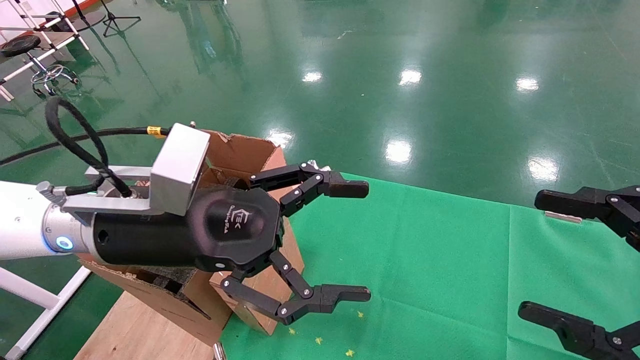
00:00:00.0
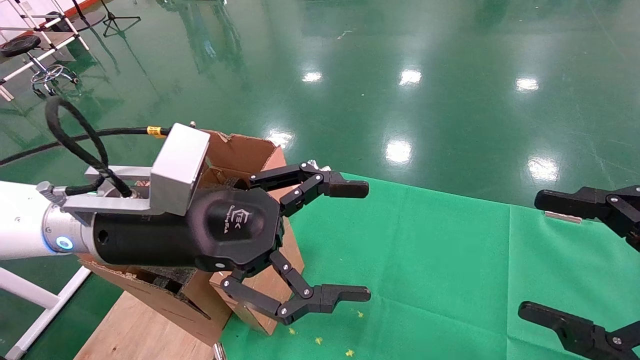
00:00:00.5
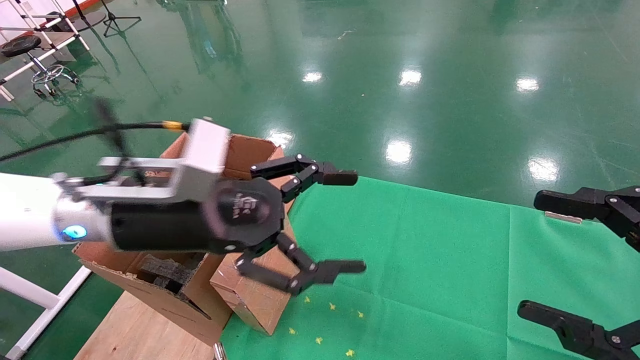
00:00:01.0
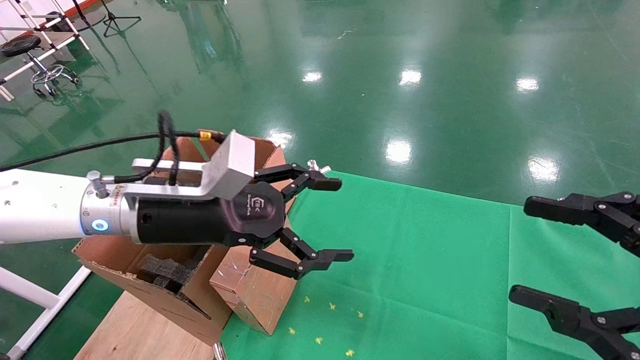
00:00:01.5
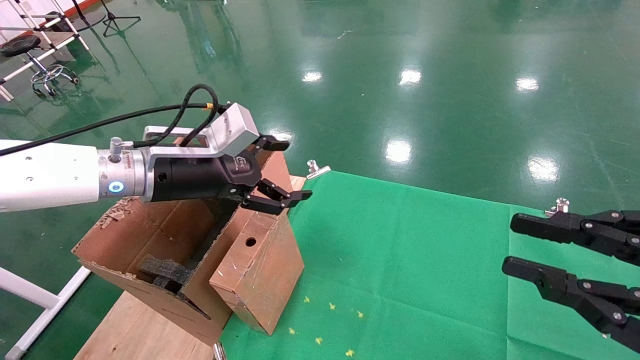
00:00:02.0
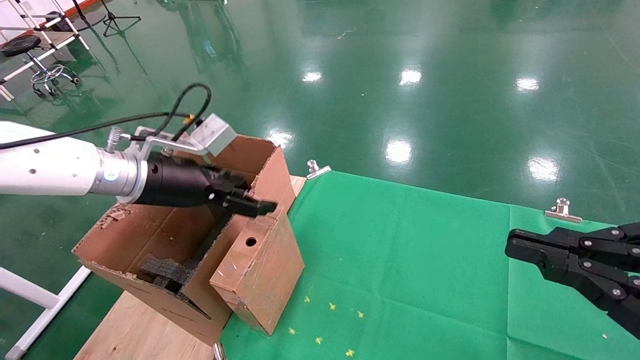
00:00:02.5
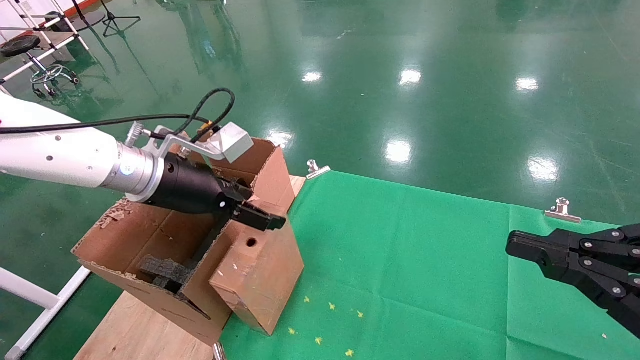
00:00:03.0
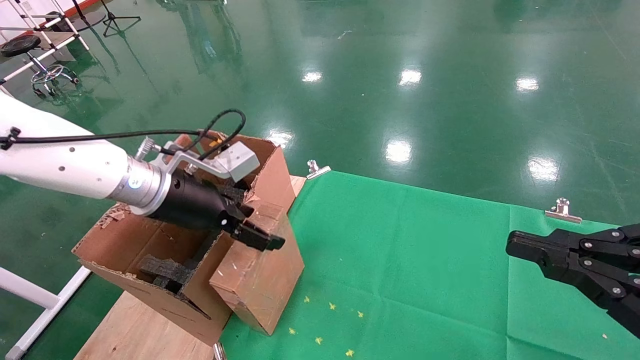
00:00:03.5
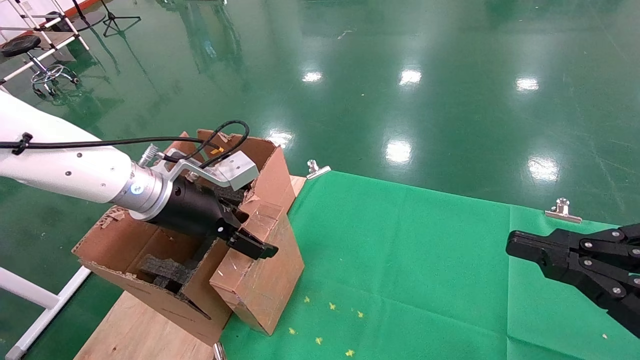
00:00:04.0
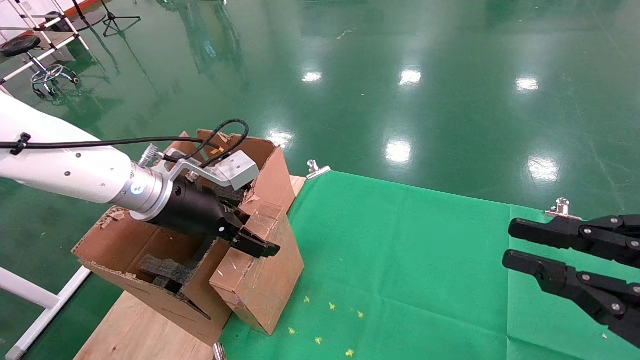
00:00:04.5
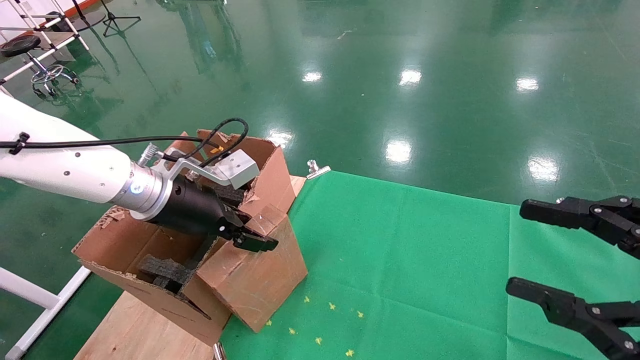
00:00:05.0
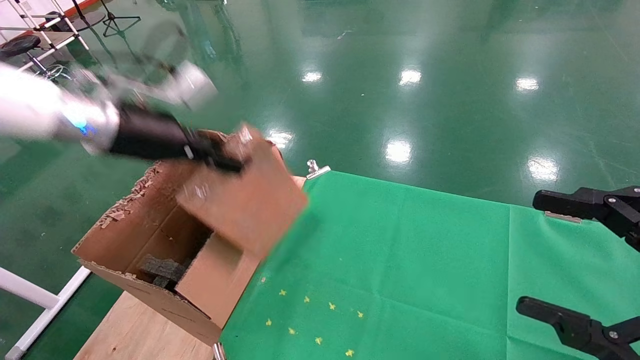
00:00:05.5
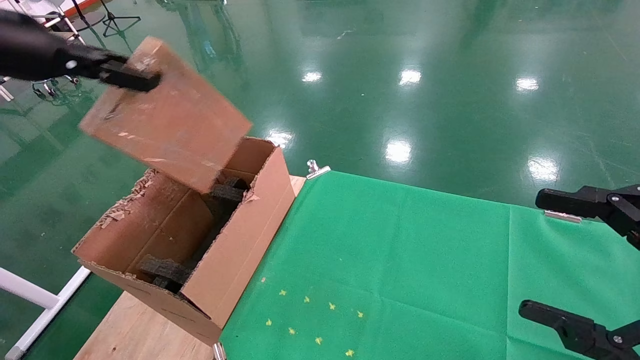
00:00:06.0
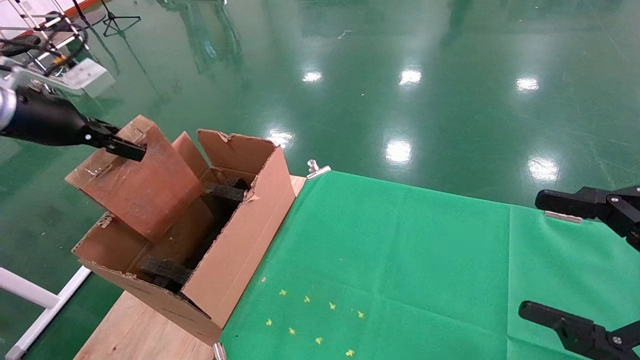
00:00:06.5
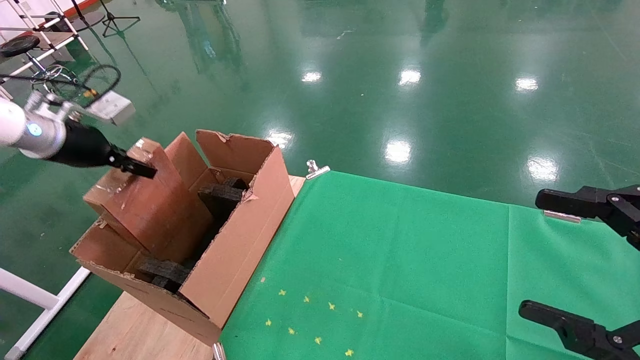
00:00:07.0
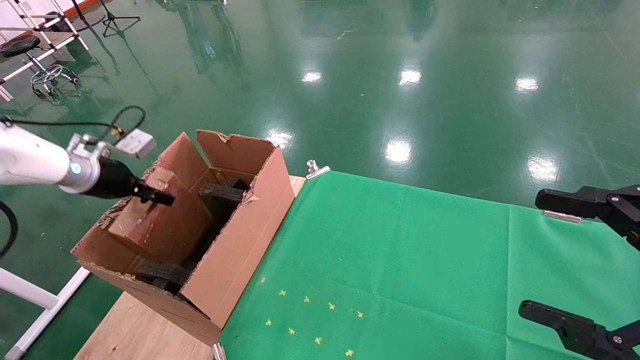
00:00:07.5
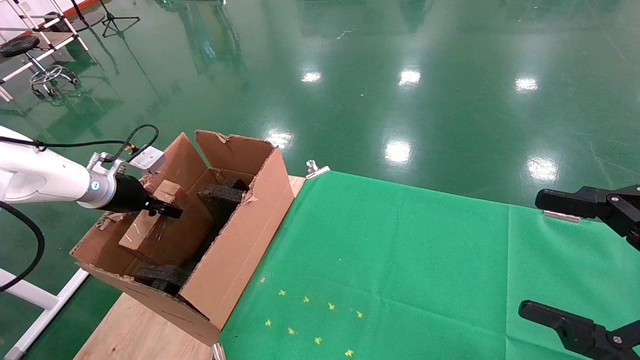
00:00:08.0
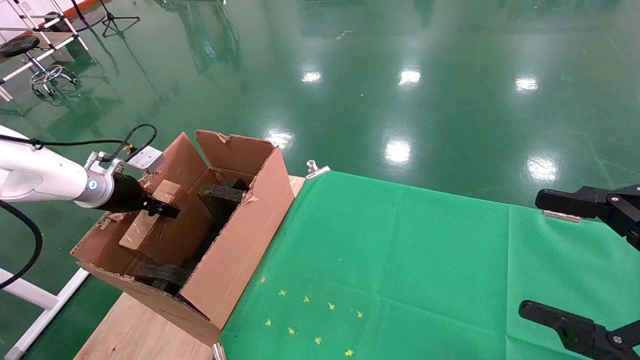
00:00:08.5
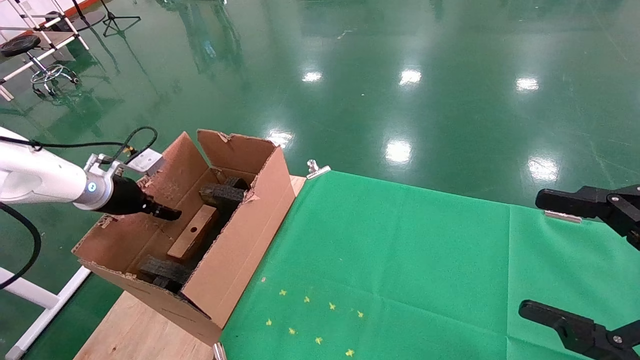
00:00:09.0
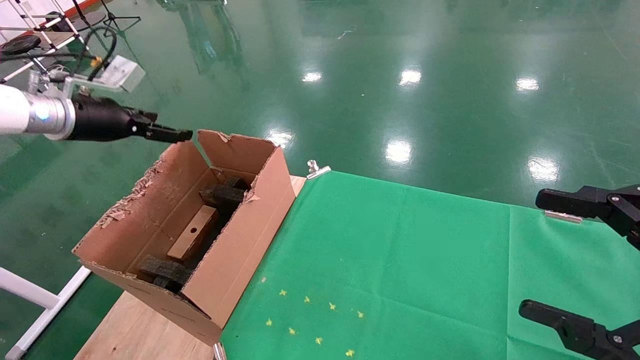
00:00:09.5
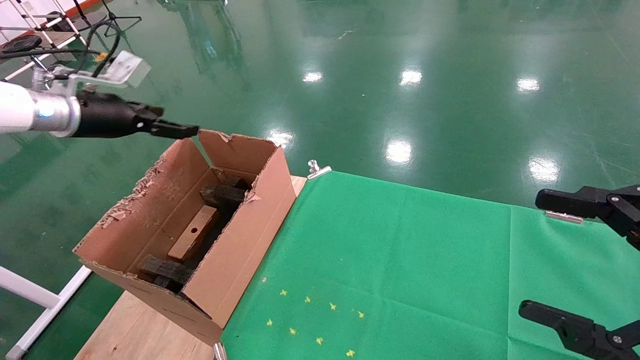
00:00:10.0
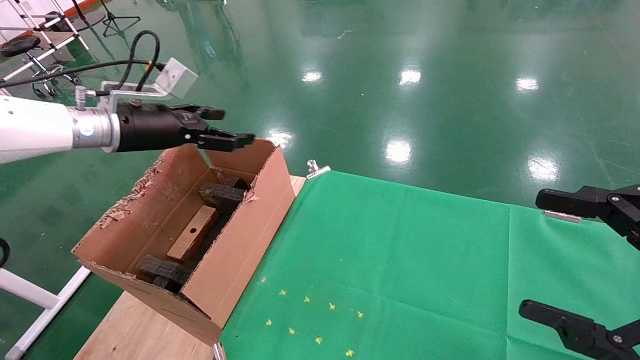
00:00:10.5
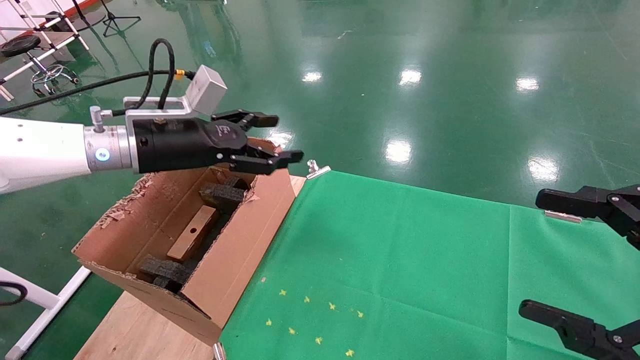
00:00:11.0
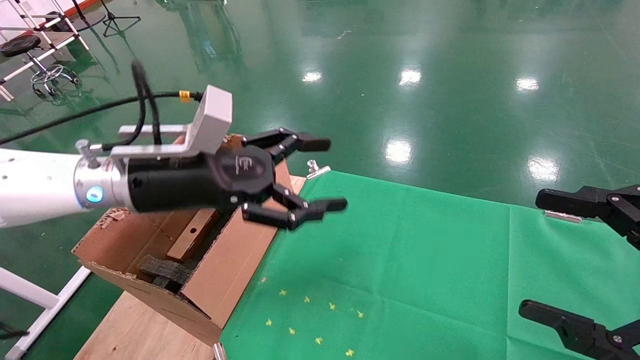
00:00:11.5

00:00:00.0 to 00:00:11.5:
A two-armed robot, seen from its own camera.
Task of the whole recording: using a robotic arm to pick up a cardboard box and palace it the carton.
Step, 00:00:01.5 to 00:00:05.0: Pick up the mouse and the power cord paper box.
Step, 00:00:05.5 to 00:00:08.5: Place the mouse and the power cord paper box into the container.
00:00:00.0 to 00:00:02.0: The right gripper closes. The left gripper heads forward and to the left, covering some 10 cm.
00:00:02.0 to 00:00:04.0: The right gripper closes.
00:00:04.0 to 00:00:06.0: The right gripper opens its fingers. Meanwhile the left gripper moves upward and to the left, approximately 25 cm, and closes its fingers.
00:00:06.0 to 00:00:07.5: The left gripper is displaced downward and forward by some 20 cm.
00:00:07.5 to 00:00:09.5: The left gripper goes about 10 cm upward, and opens its fingers.
00:00:09.5 to 00:00:11.5: The left gripper travels to the right and backward by some 25 cm.

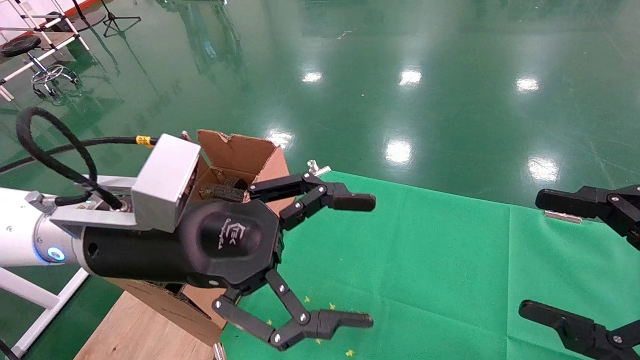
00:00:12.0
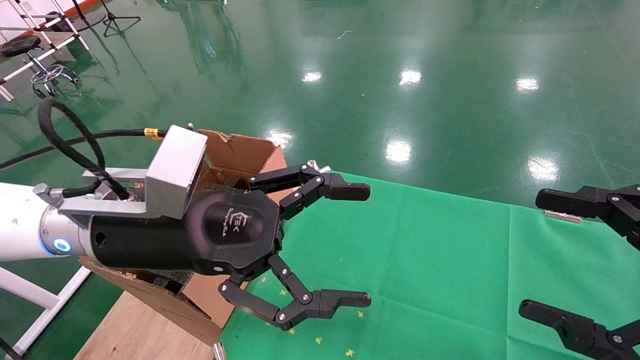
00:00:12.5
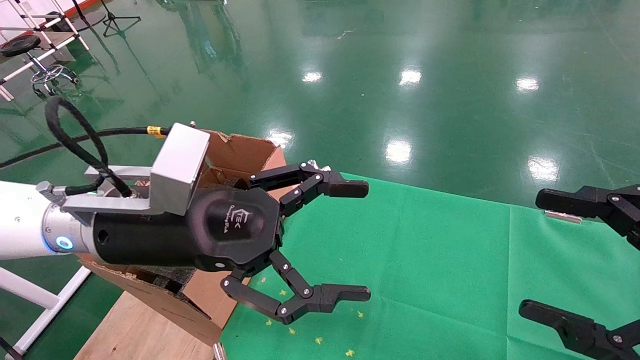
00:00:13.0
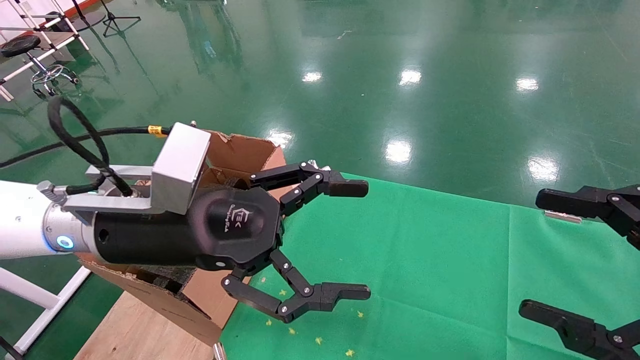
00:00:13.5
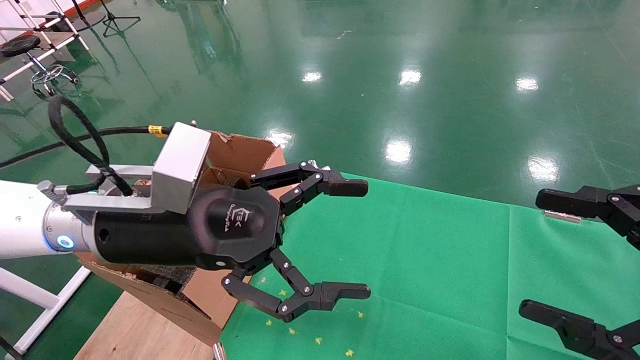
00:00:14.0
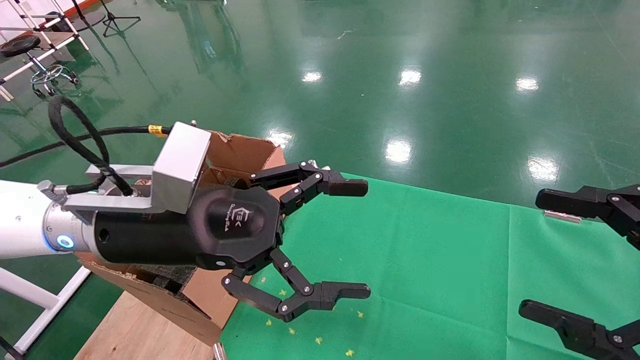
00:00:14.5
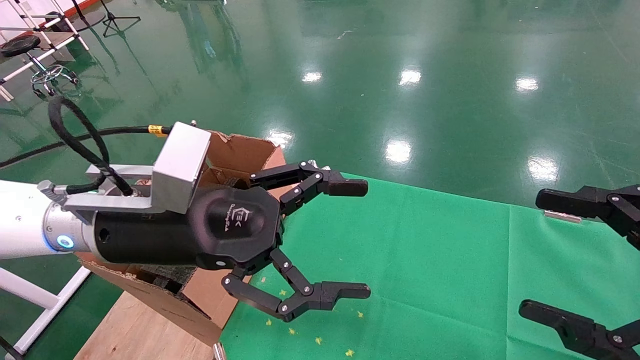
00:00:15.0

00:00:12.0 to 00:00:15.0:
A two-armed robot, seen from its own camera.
Task of the whole recording: using a robotic arm to pick up a cardboard box and palace it the carton.
00:00:12.0 to 00:00:15.0: Neither gripper changes place.
